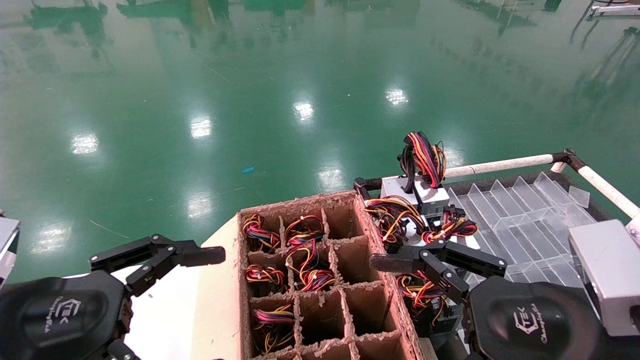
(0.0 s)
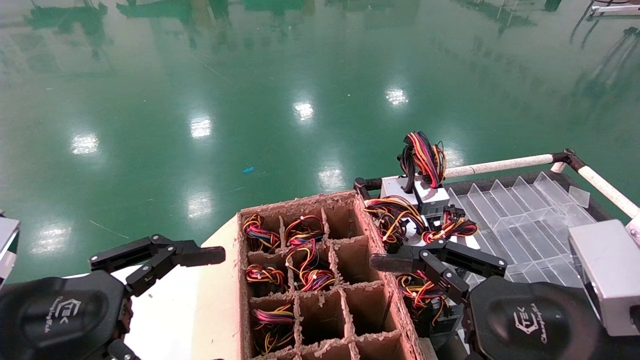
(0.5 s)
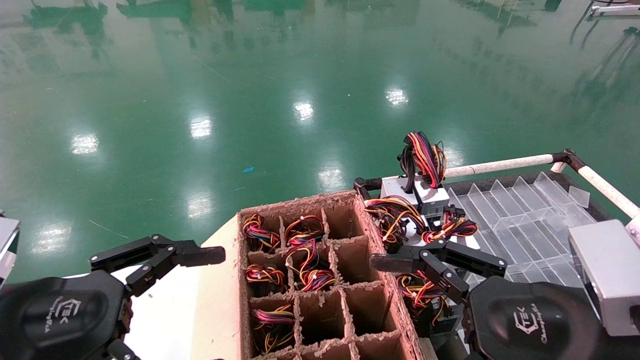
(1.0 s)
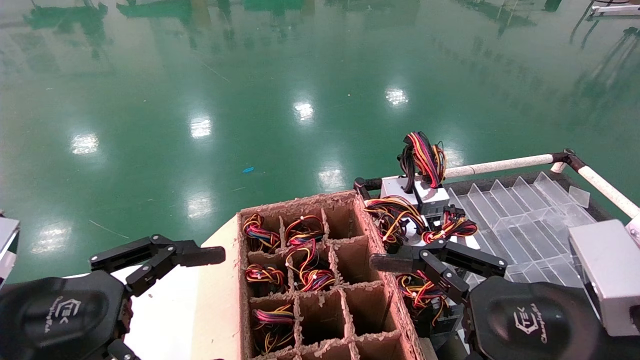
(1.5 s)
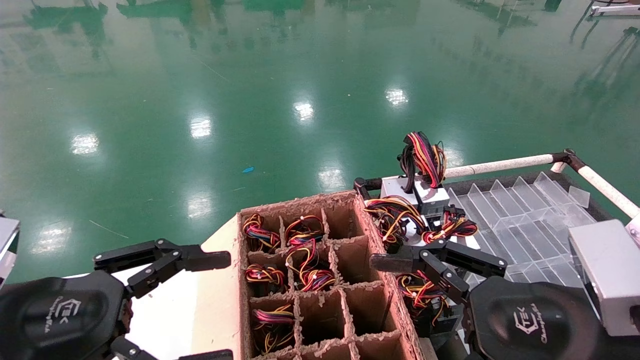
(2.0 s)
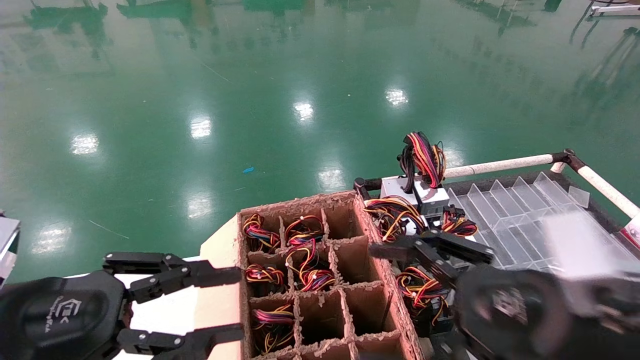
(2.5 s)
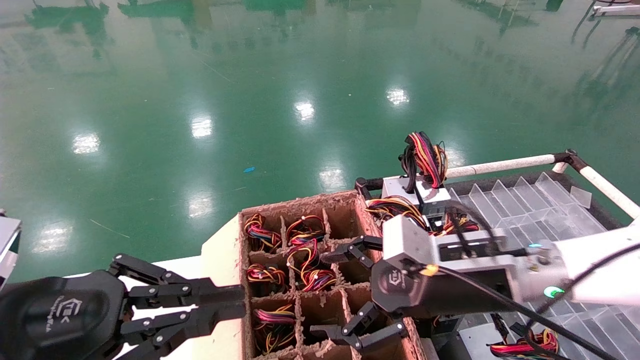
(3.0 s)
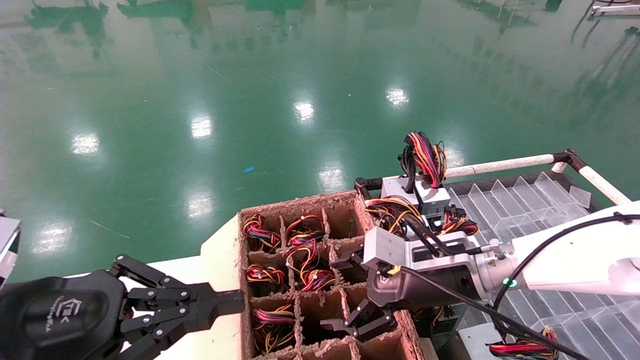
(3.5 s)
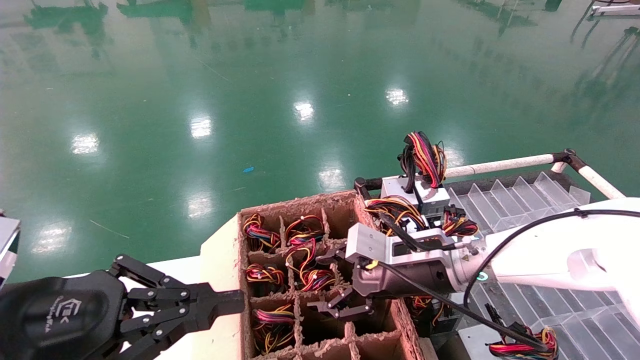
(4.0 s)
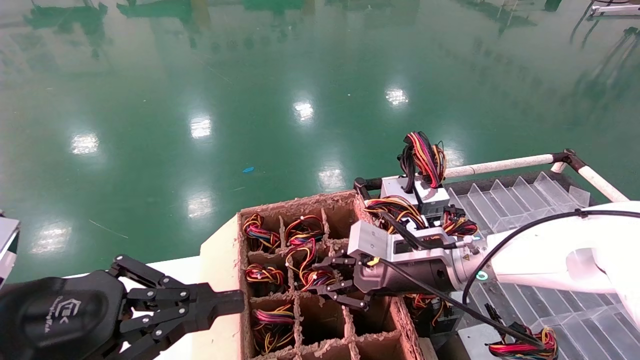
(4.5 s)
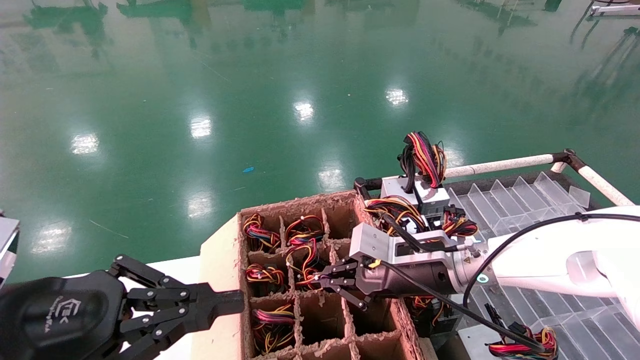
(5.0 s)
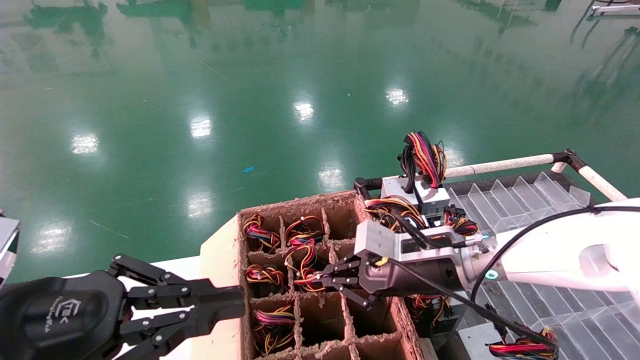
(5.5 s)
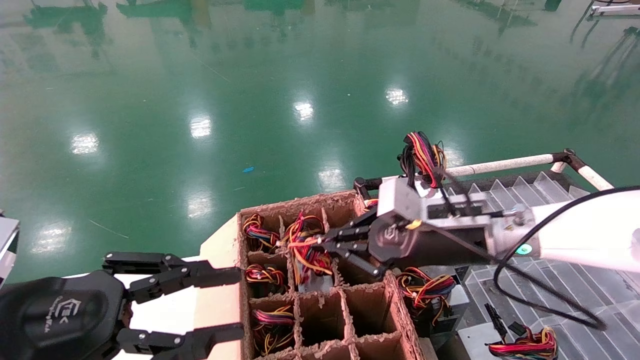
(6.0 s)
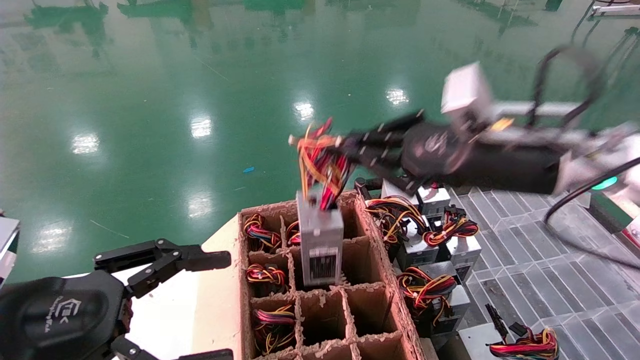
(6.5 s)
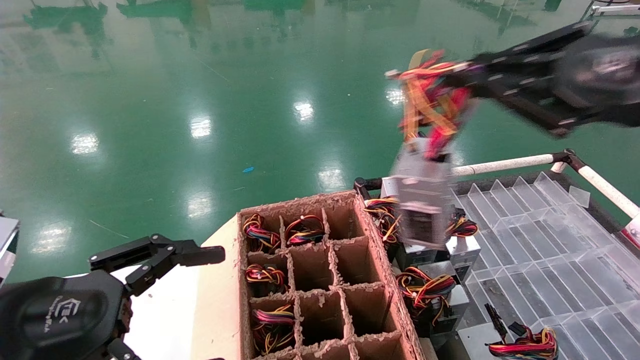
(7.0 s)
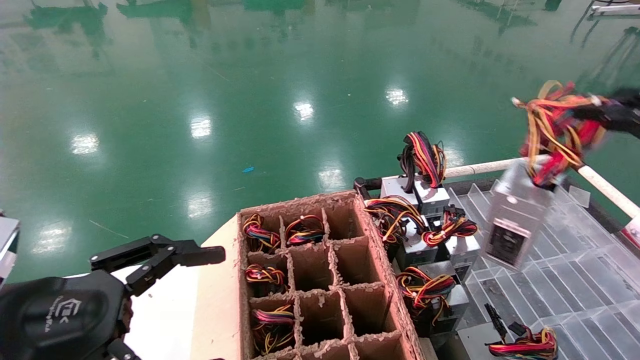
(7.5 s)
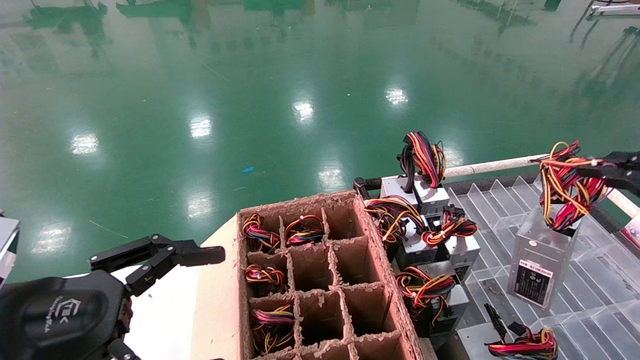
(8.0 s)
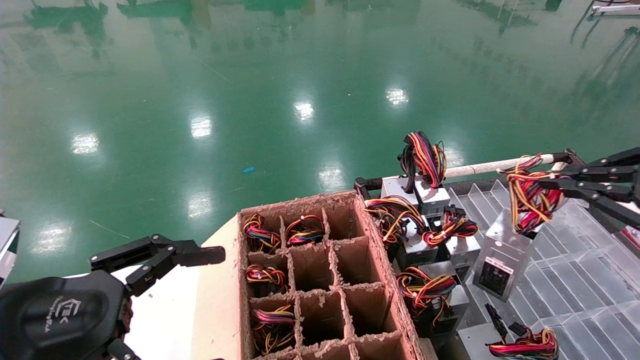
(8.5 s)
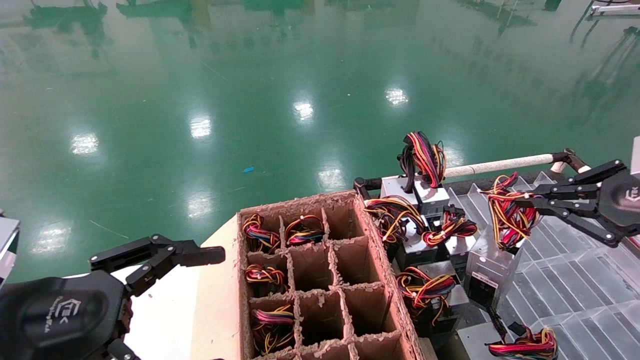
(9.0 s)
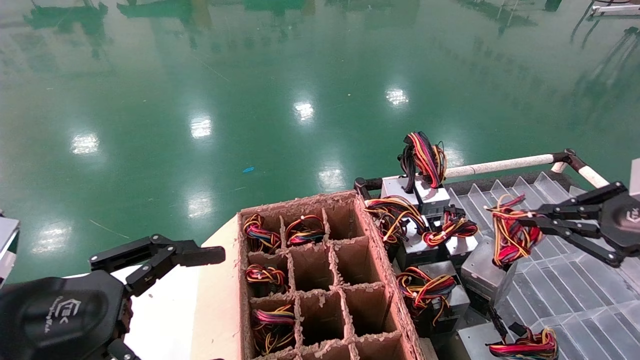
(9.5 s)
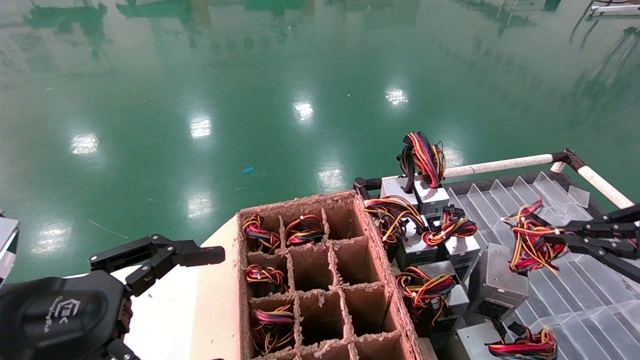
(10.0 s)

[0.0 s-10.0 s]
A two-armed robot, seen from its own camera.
Step, 2.5 to 4.5 s: Grab and lift the power supply from the large box.
0.0 to 2.0 s: Both grippers stay put.
2.0 to 4.0 s: The right gripper is displaced forward by roughly 20 cm, while the left gripper closes up.
4.0 to 6.0 s: The right gripper shifts approximately 5 cm upward, and closes.
6.0 to 8.0 s: The right gripper goes about 30 cm to the right and backward. Meanwhile the left gripper opens its fingers.
8.0 to 10.0 s: The right gripper goes approximately 5 cm downward.

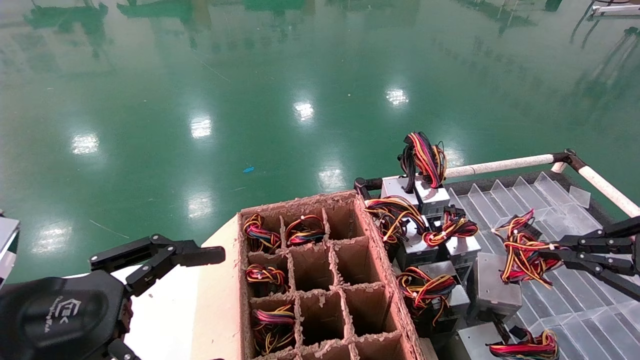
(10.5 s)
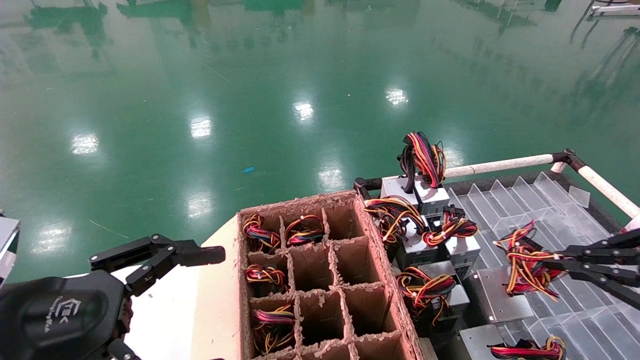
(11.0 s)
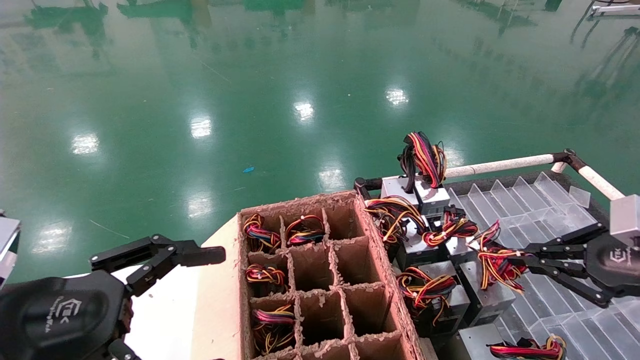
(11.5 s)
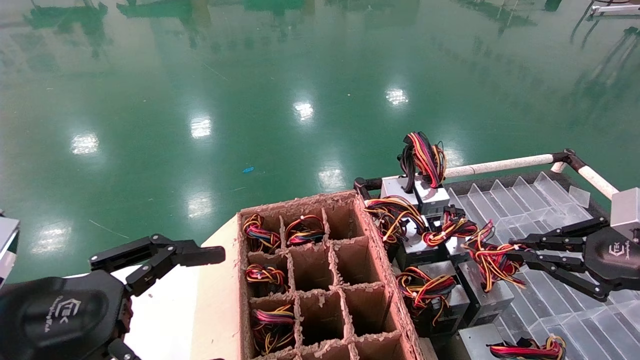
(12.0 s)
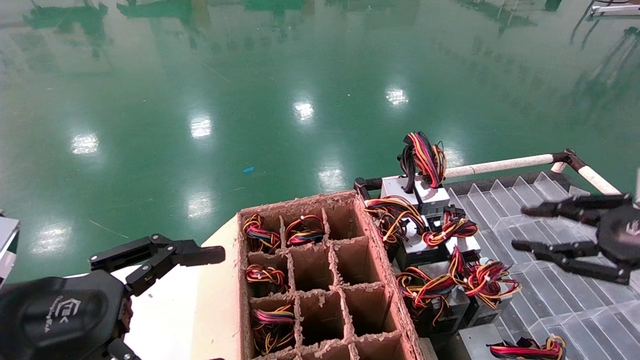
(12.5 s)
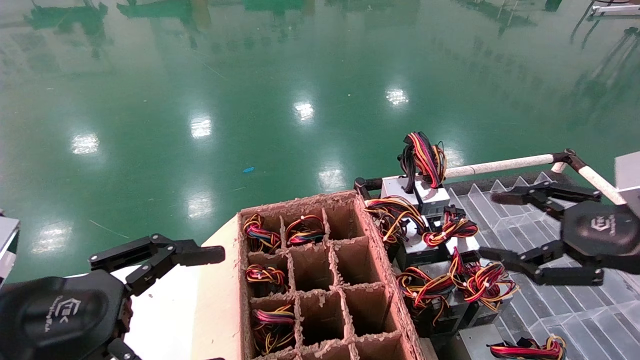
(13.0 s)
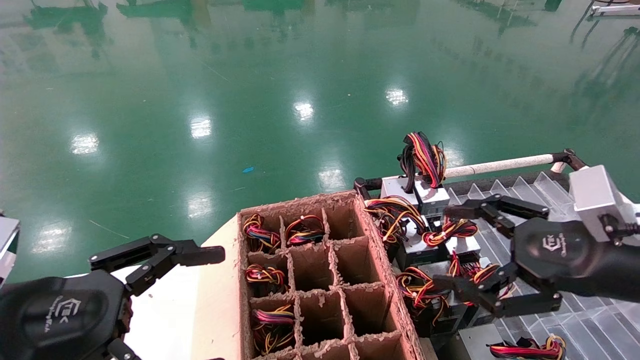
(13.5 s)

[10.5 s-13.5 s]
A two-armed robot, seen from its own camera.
10.5 to 12.0 s: The right gripper ends up roughly 5 cm from where it was.
12.0 to 13.5 s: The right gripper shifts roughly 10 cm to the left, and opens up.
